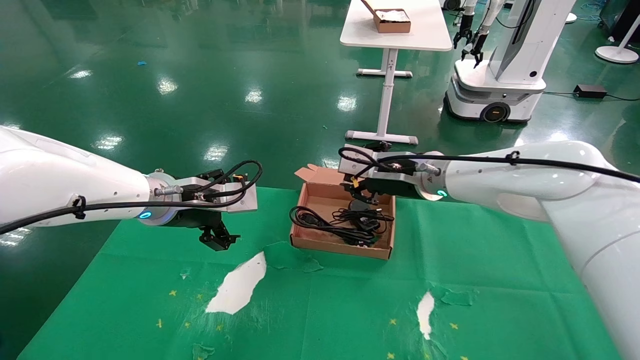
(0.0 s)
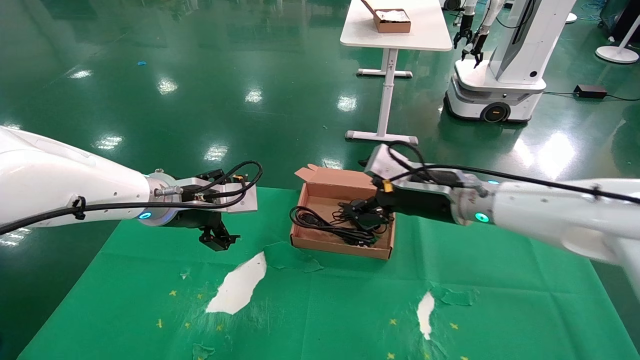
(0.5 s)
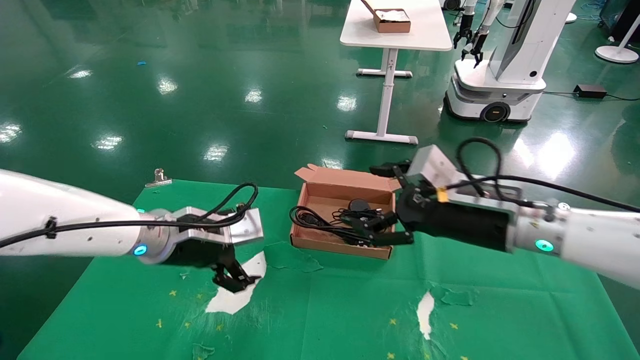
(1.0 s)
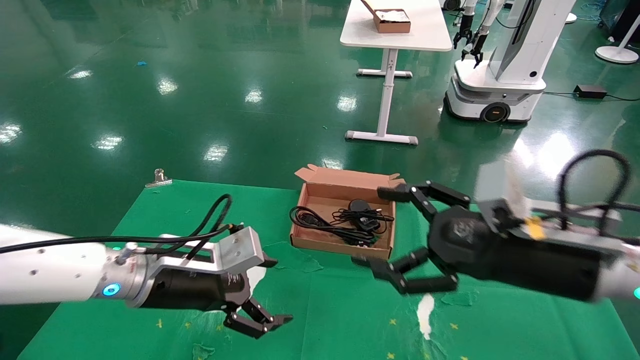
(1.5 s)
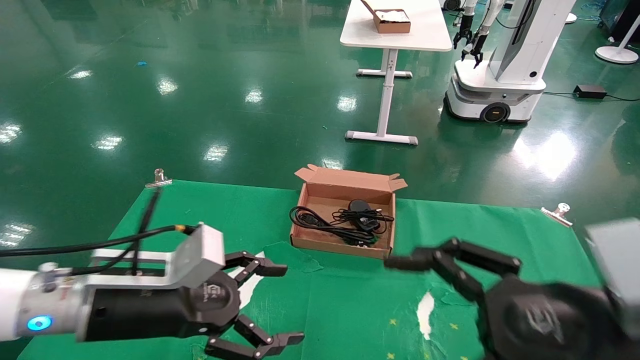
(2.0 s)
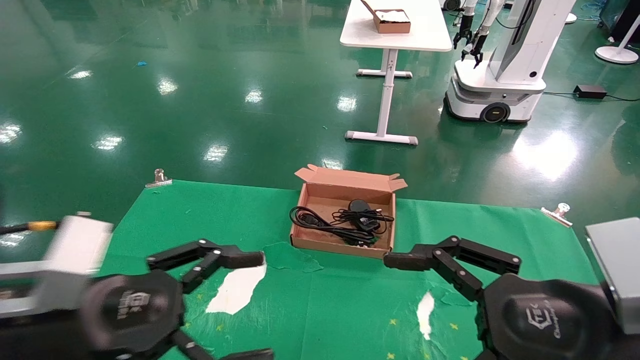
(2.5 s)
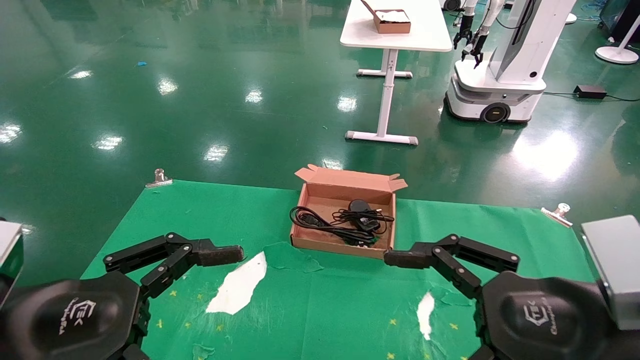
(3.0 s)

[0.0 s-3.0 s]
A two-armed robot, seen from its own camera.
0.0 to 1.5 s: The right gripper shifts some 20 cm backward and to the right, and opens its fingers. Meanwhile the left gripper heads downward and backward, covering about 10 cm.
1.5 to 3.0 s: The left gripper moves backward and to the left, roughly 20 cm. Meanwhile the right gripper moves backward, roughly 10 cm.

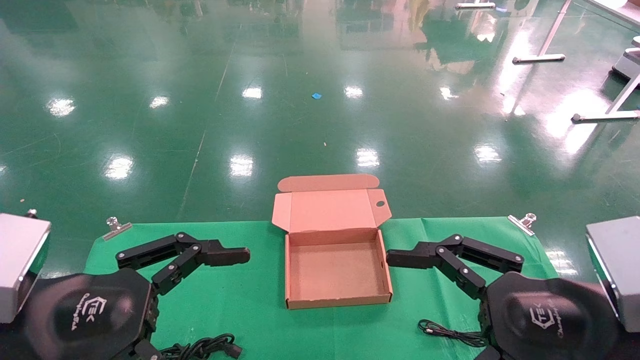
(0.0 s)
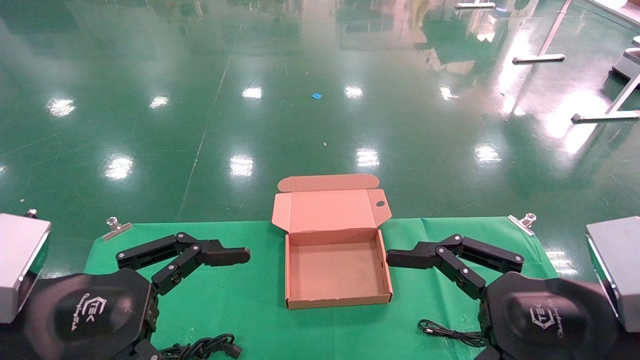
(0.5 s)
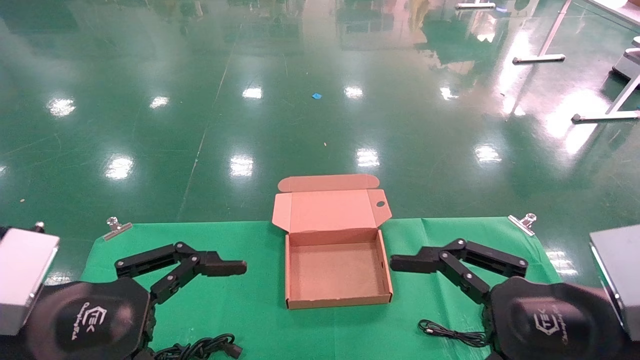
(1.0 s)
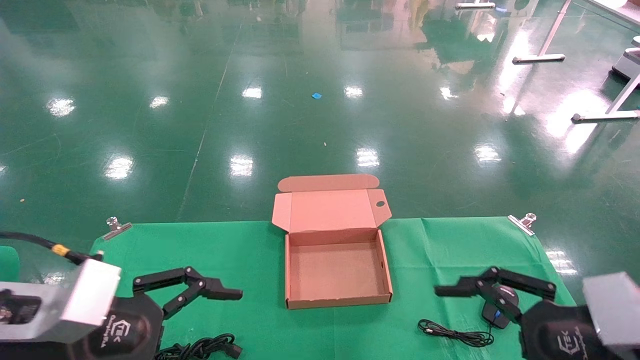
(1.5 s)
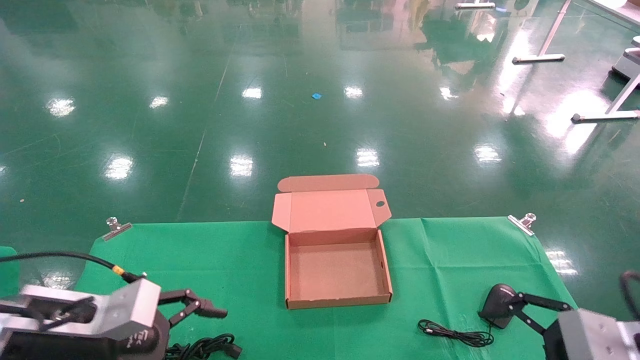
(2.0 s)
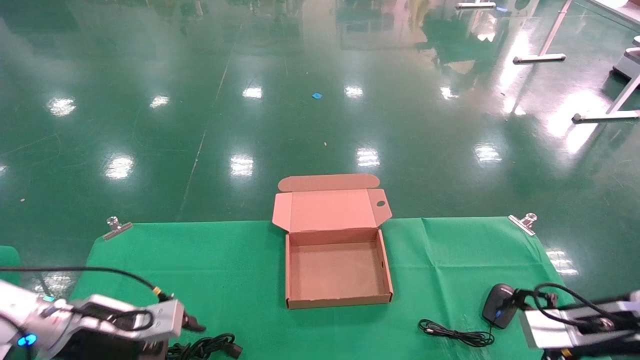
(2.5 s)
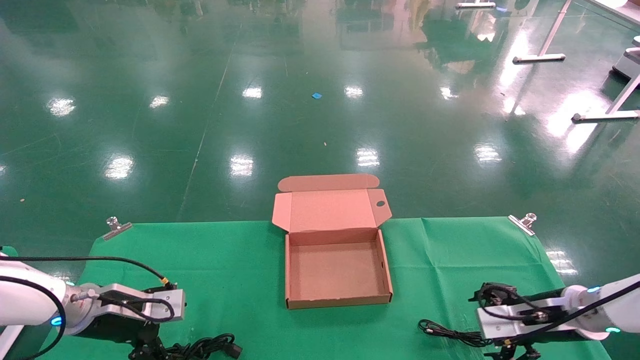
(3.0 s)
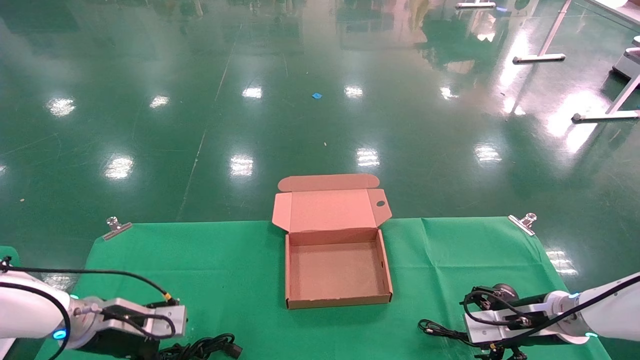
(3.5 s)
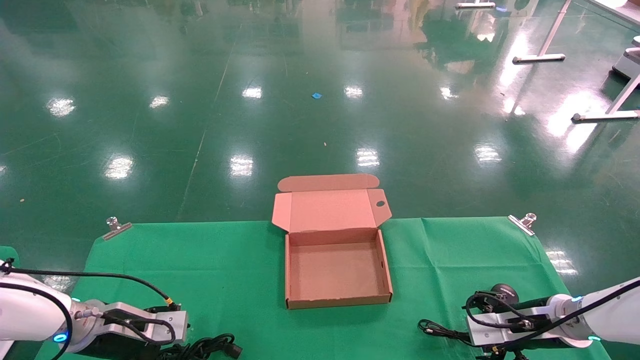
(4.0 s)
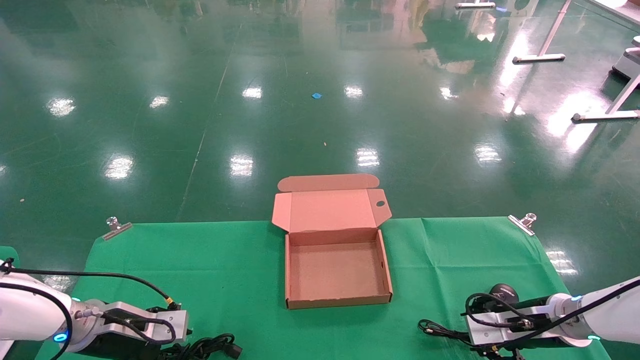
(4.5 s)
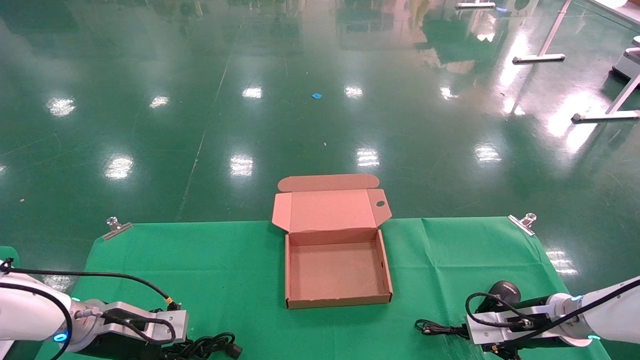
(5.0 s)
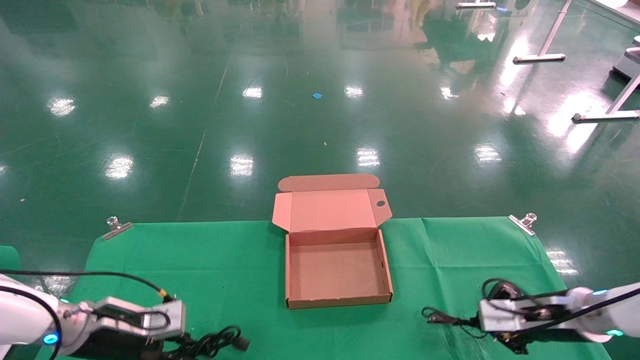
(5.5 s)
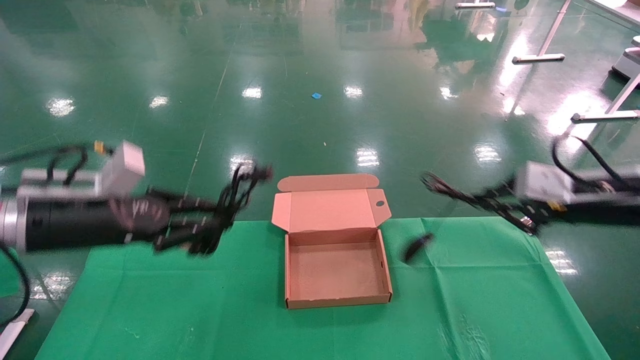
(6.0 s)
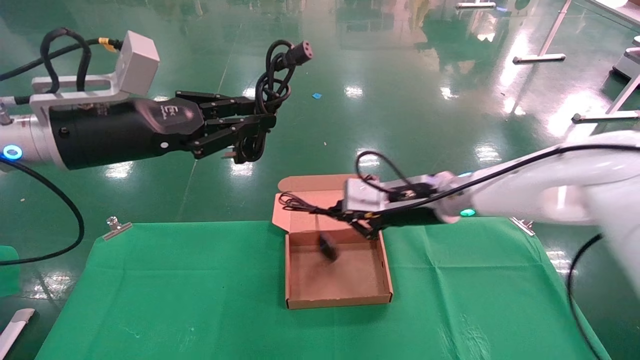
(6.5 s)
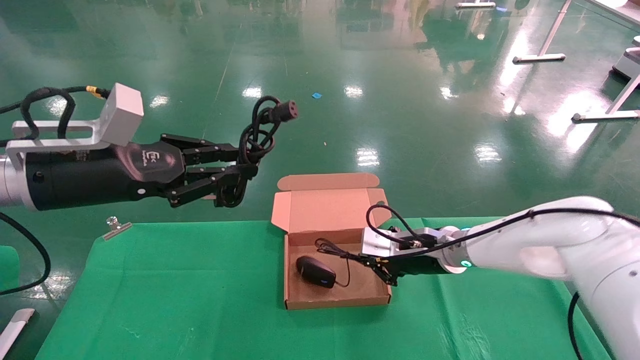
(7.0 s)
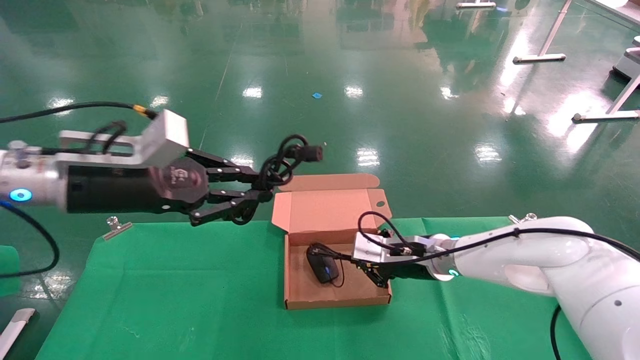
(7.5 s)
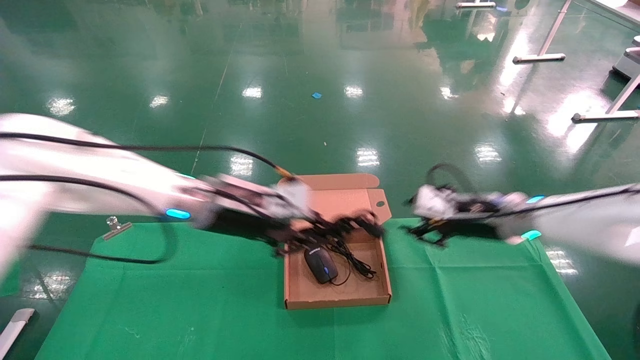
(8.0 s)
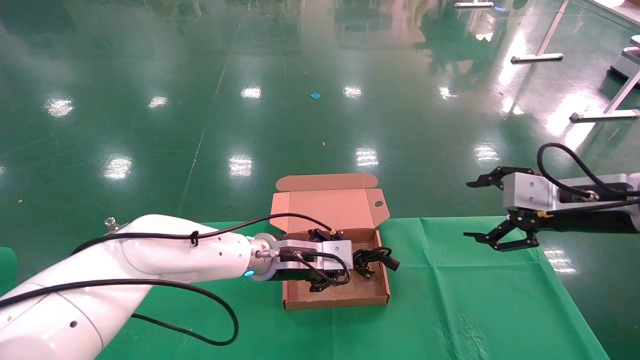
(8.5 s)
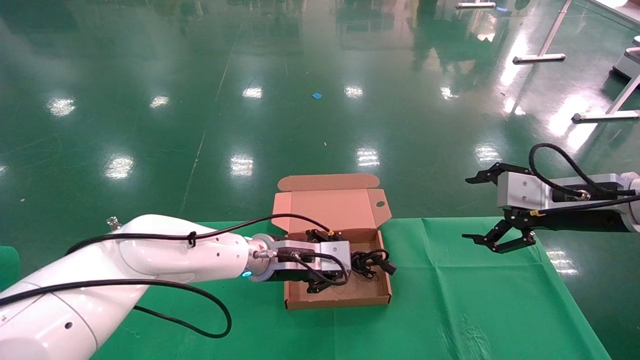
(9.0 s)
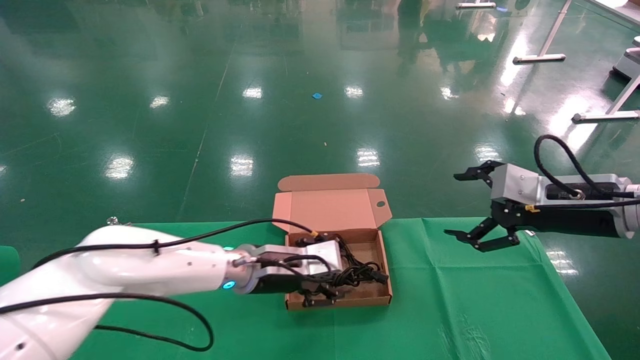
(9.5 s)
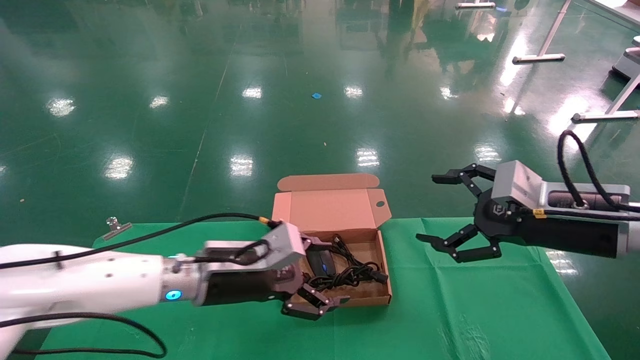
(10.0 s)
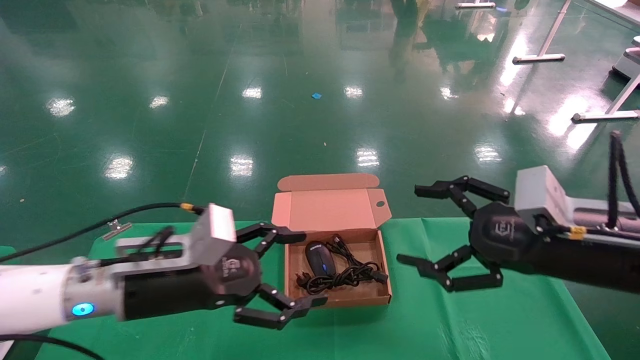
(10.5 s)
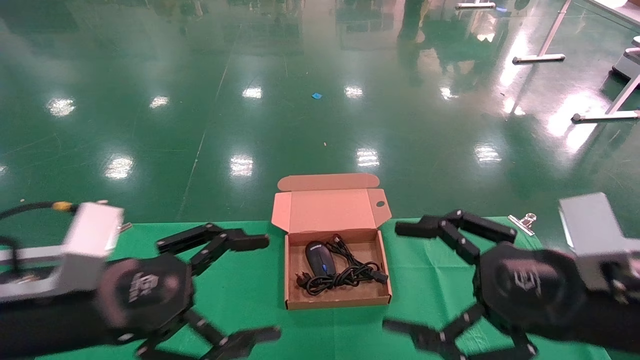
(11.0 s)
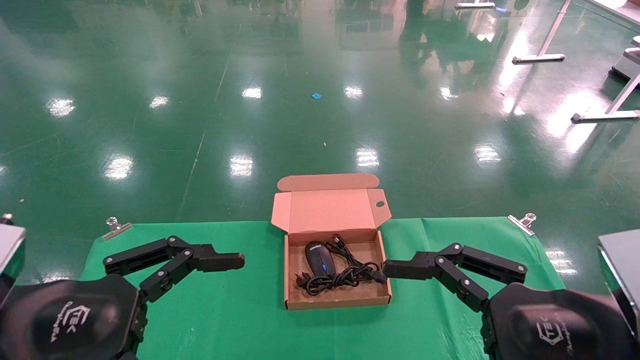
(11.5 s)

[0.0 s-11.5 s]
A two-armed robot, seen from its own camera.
Step, 1.0 to 5.0 s: Grab and lift both the mouse and power cord from the accessory packaging area at the same time.
Step, 5.5 to 8.5 s: Place the mouse and power cord into the box.
0.0 to 2.0 s: The left gripper is displaced forward and downward by some 10 cm, while the right gripper shifts some 15 cm to the right, forward and downward.
2.0 to 4.0 s: The two grippers go about 15 cm forward and downward.
4.0 to 6.0 s: The grippers both shift upward by some 20 cm. The right gripper closes up, while the left gripper closes up.
6.0 to 7.5 s: The left gripper moves to the right and upward, roughly 10 cm, while the right gripper moves to the left, downward and forward, roughly 20 cm.
7.5 to 9.5 s: The left gripper travels to the right, downward and forward by about 25 cm, and opens up. Meanwhile the right gripper moves to the right, upward and backward, roughly 20 cm, and opens its fingers.
9.5 to 11.5 s: Both grippers travel together backward and to the left, some 25 cm. The left gripper opens up.

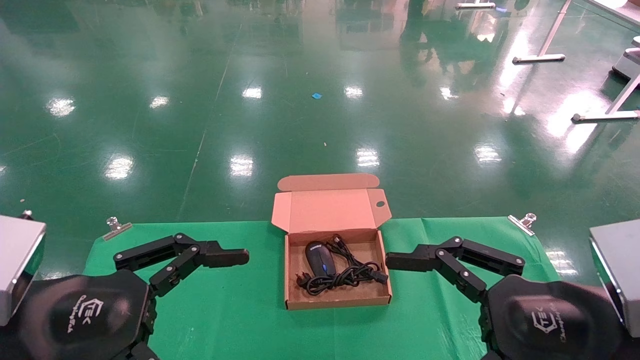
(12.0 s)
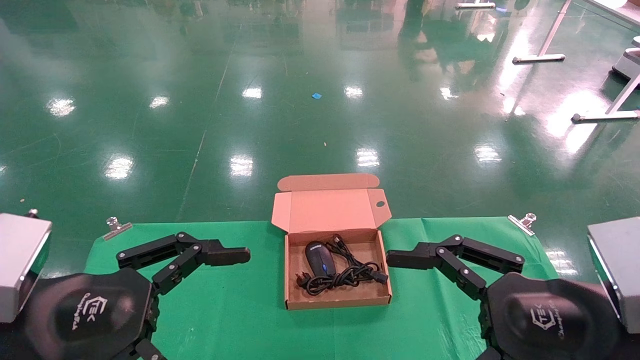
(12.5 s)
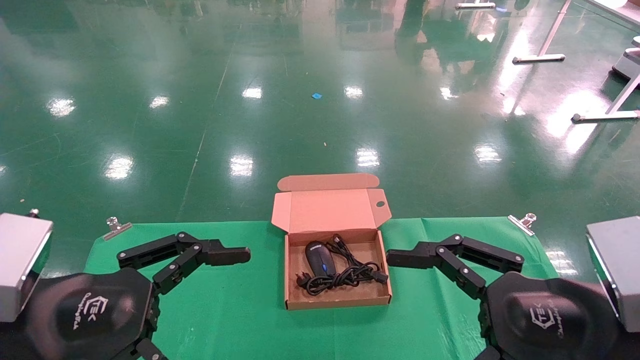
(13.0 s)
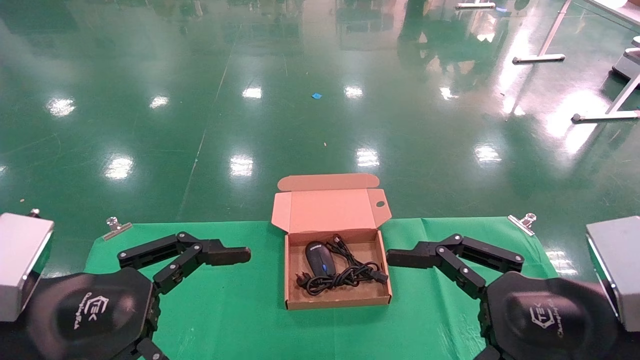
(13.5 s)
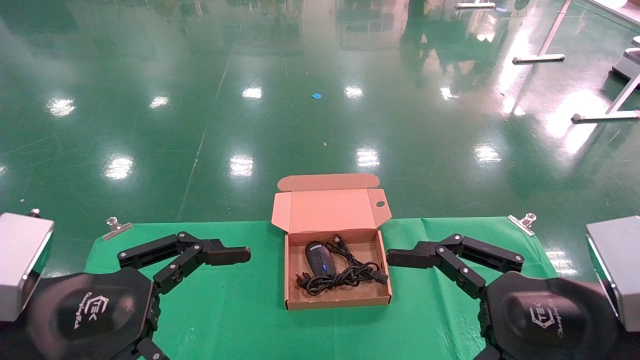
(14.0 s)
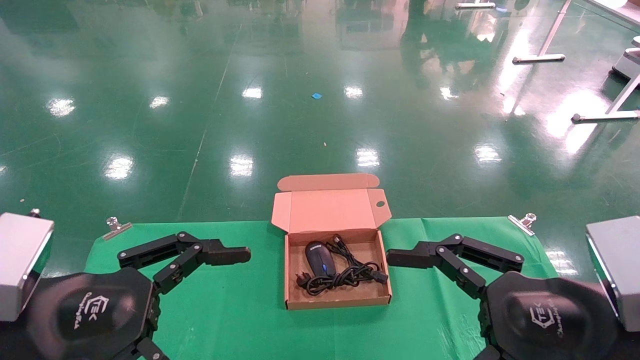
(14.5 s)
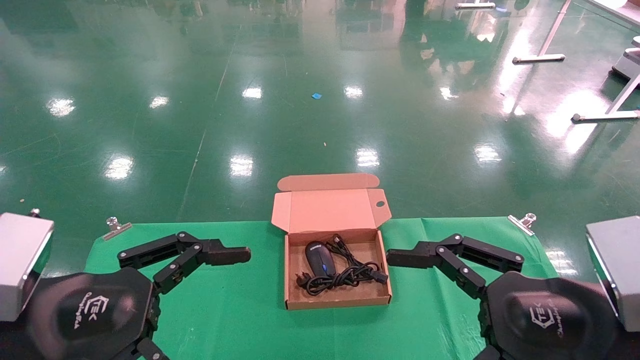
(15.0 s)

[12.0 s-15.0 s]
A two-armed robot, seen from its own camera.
12.0 to 15.0 s: The two grippers keep their place.
